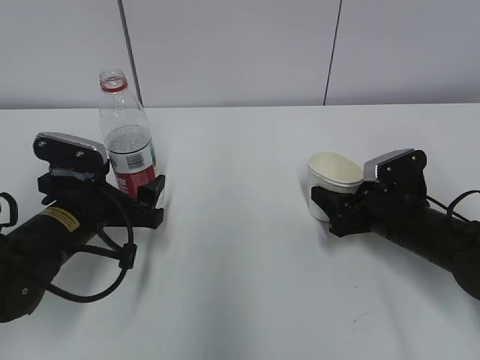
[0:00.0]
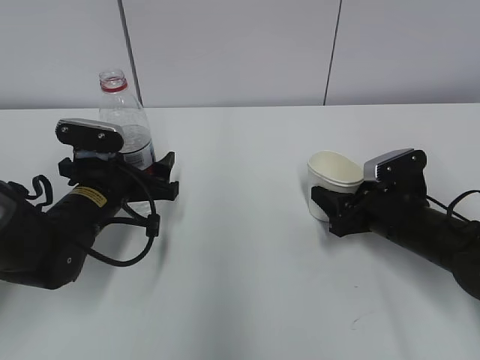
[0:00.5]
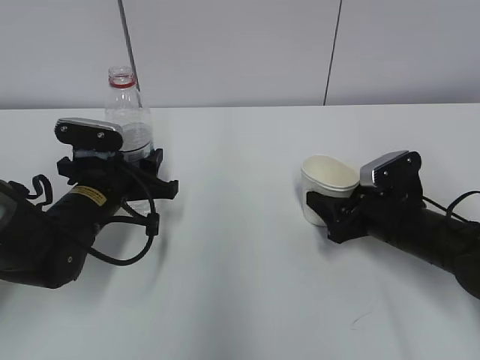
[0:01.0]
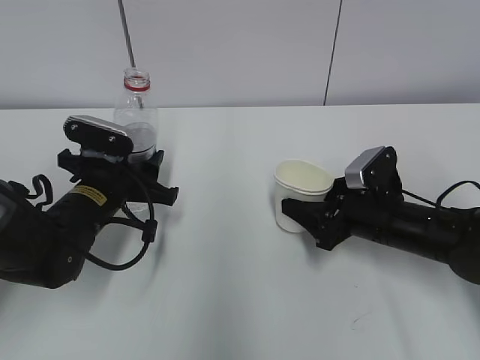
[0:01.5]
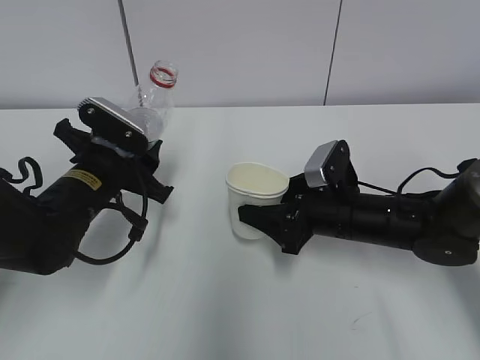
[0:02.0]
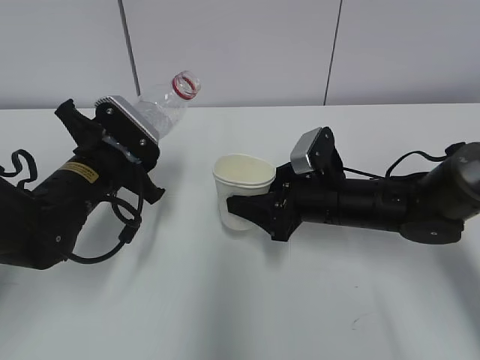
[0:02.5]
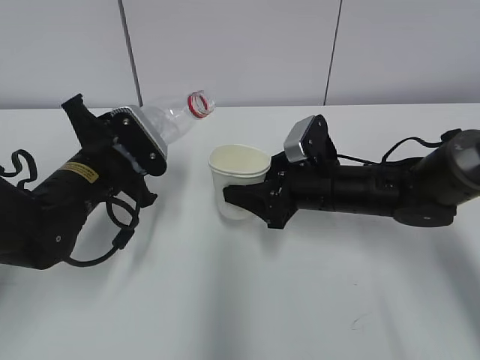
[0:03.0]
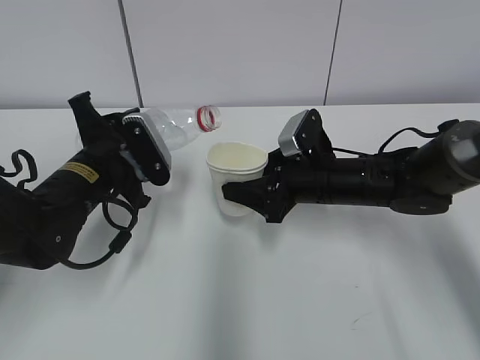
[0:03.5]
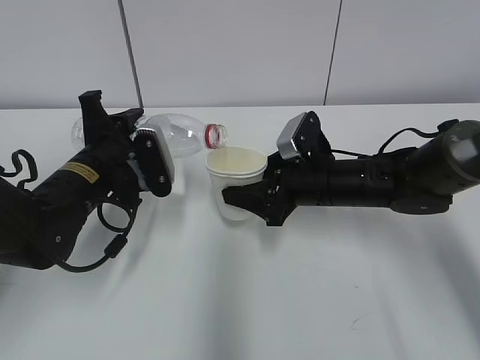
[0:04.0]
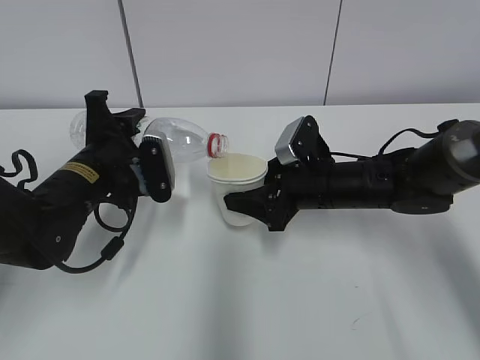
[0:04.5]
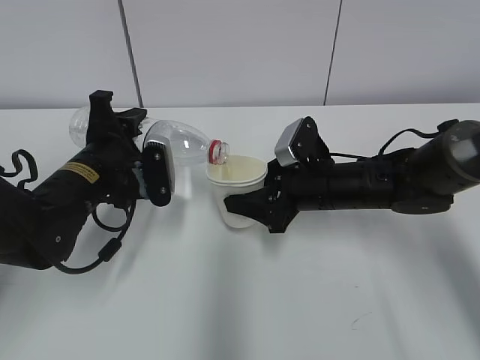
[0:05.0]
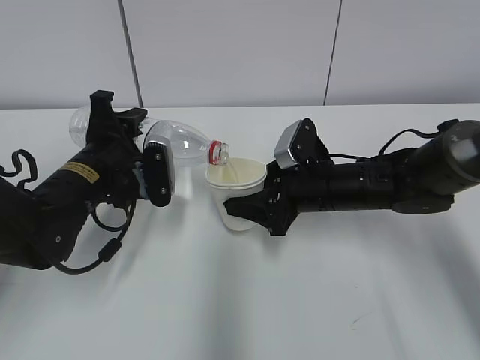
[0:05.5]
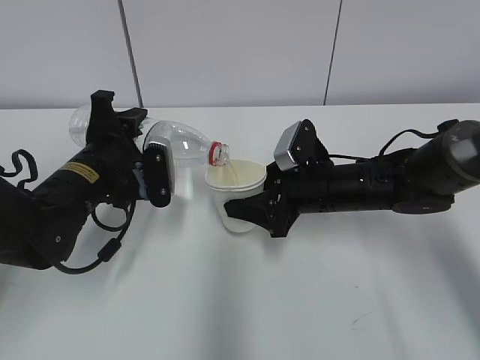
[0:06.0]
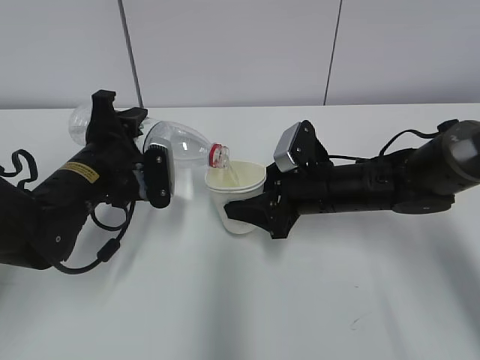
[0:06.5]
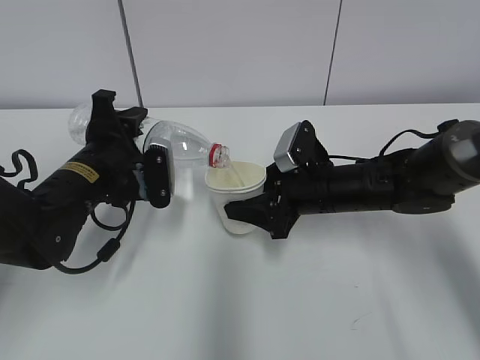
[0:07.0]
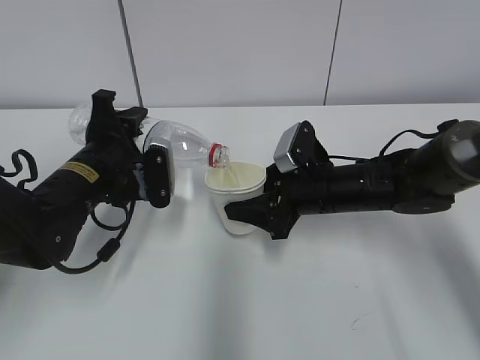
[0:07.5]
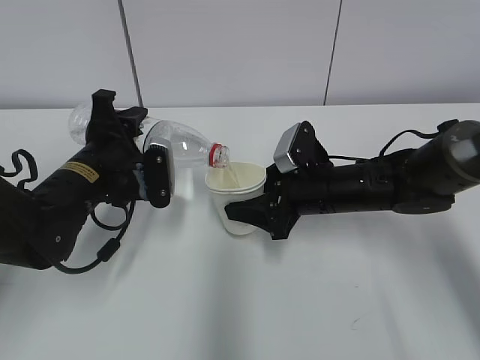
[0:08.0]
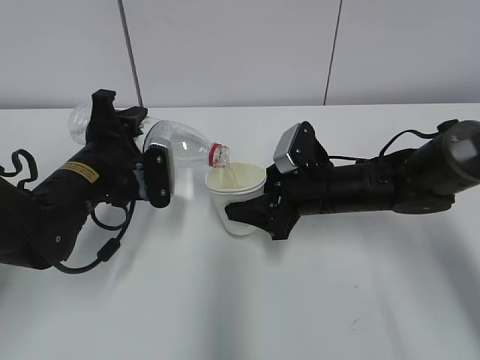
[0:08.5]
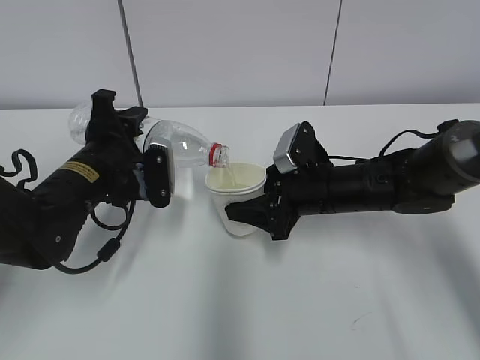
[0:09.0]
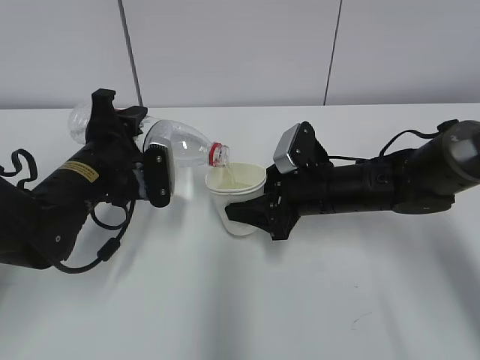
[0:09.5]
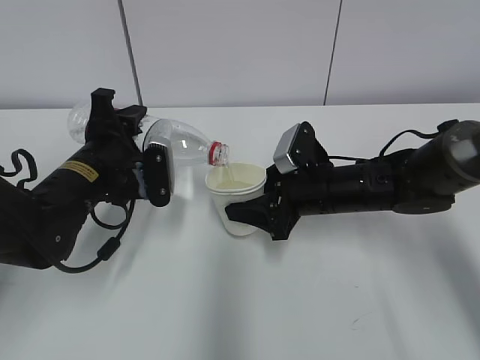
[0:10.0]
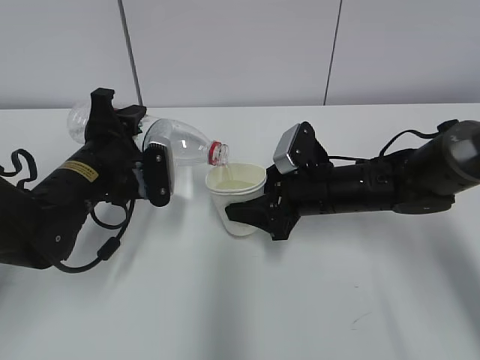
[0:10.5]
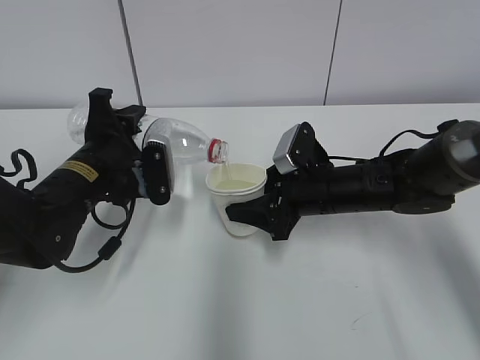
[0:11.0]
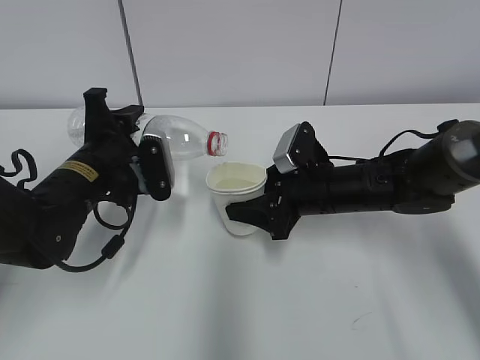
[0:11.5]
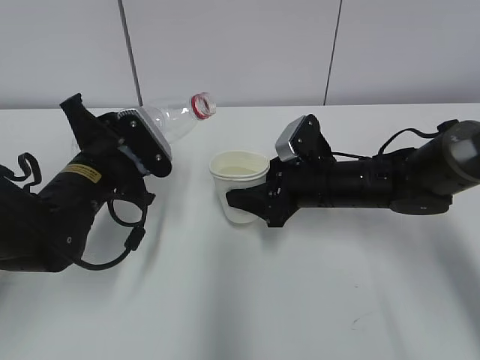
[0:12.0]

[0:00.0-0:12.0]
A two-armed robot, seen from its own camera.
Step, 0:00.0 to 0:02.0: Lift the paper cup with the right hand.
Step, 0:02.5 to 0:08.0: Fill water with the right hand.
0:00.0 to 0:02.0: The right gripper moves to the left, roughly 10 cm. Meanwhile the left gripper closes its fingers.
0:04.0 to 0:06.0: The grippers make only small movements.
0:06.0 to 0:10.0: Neither gripper changes place.

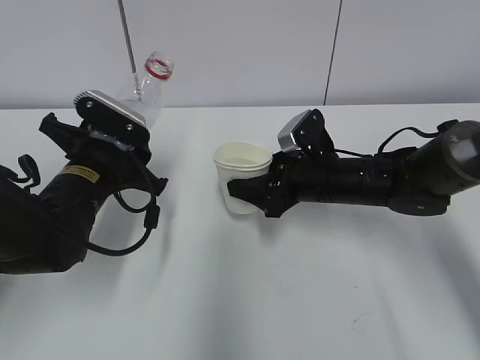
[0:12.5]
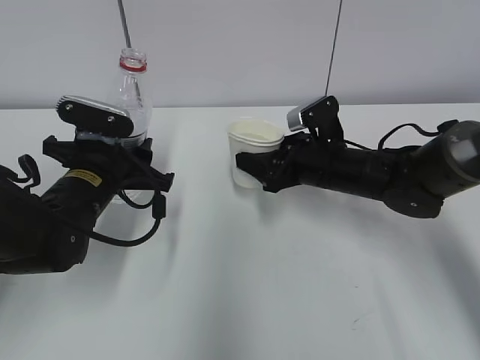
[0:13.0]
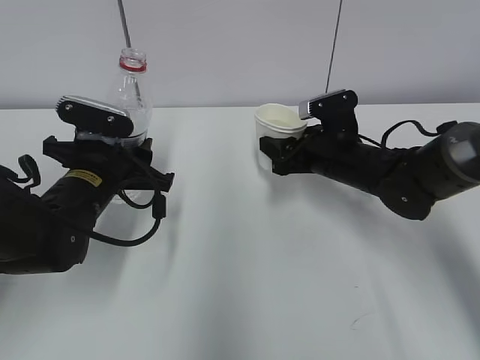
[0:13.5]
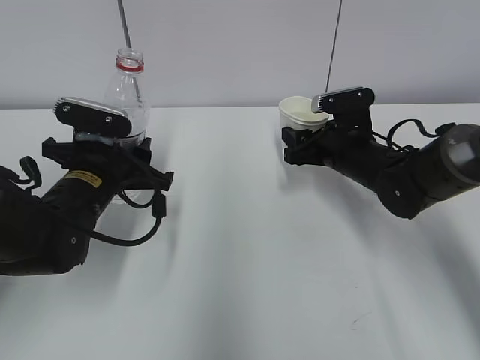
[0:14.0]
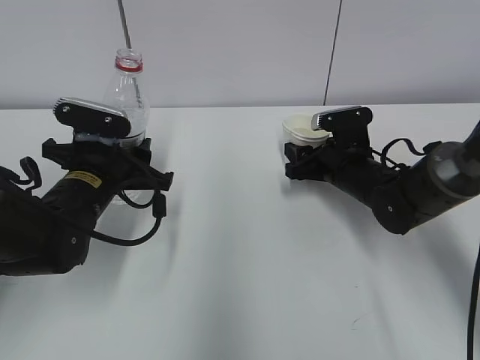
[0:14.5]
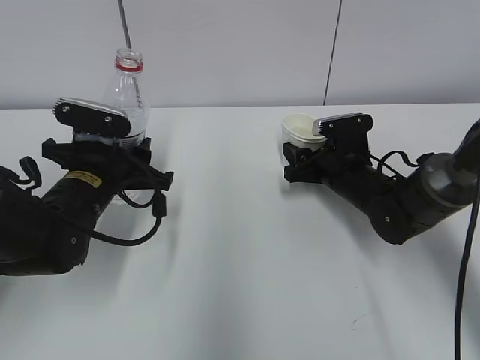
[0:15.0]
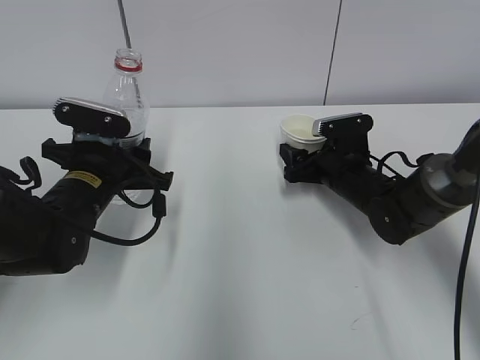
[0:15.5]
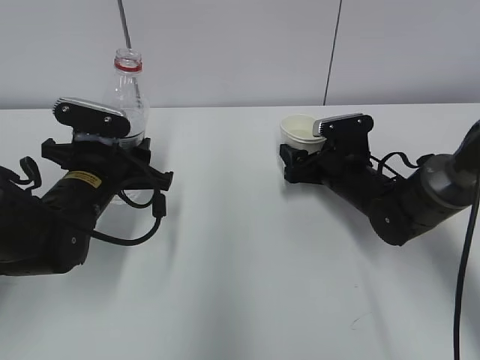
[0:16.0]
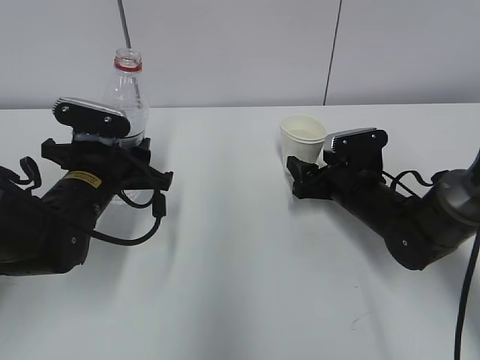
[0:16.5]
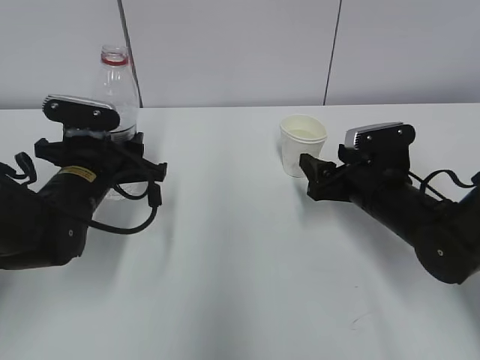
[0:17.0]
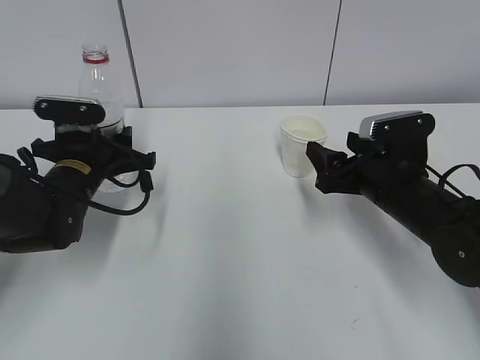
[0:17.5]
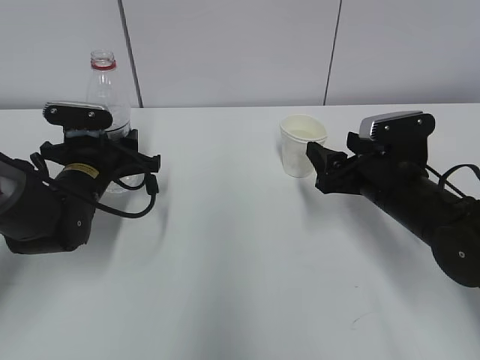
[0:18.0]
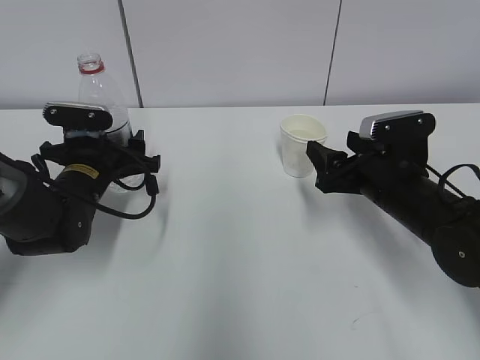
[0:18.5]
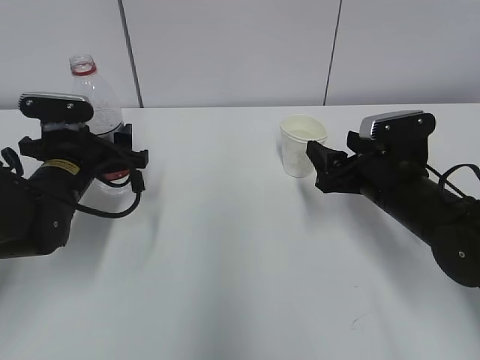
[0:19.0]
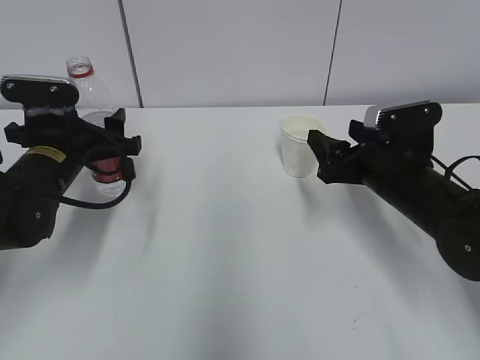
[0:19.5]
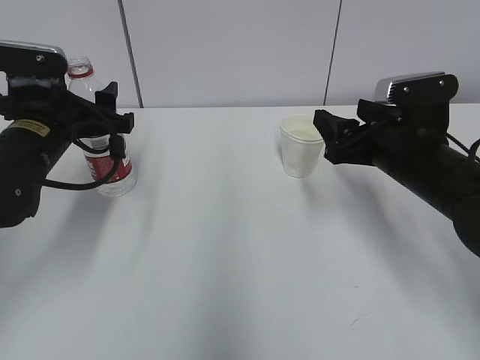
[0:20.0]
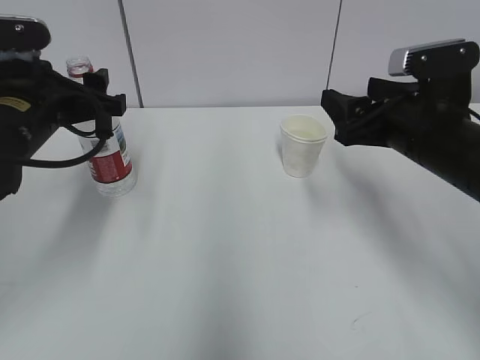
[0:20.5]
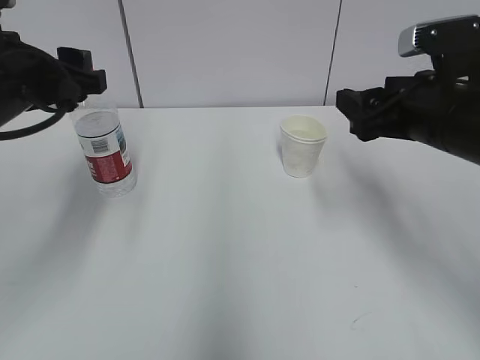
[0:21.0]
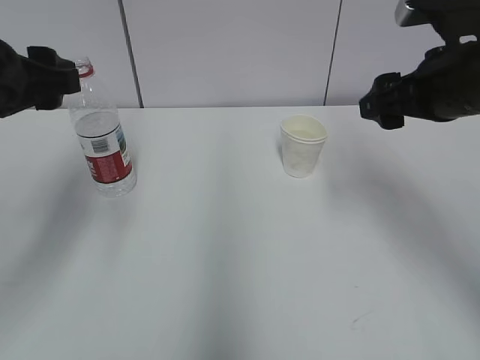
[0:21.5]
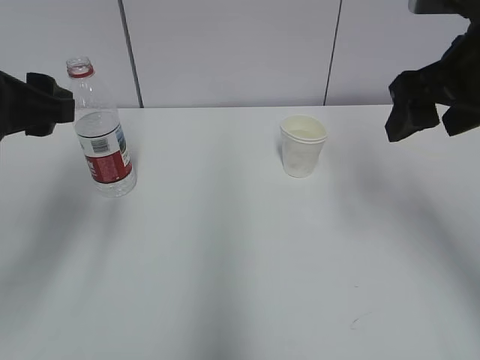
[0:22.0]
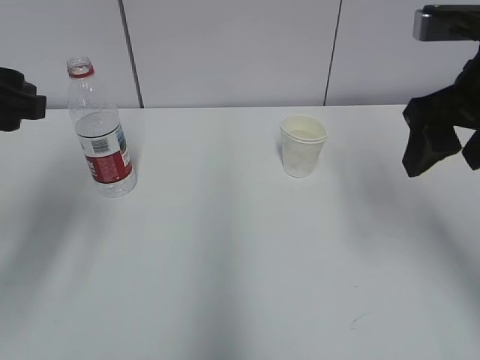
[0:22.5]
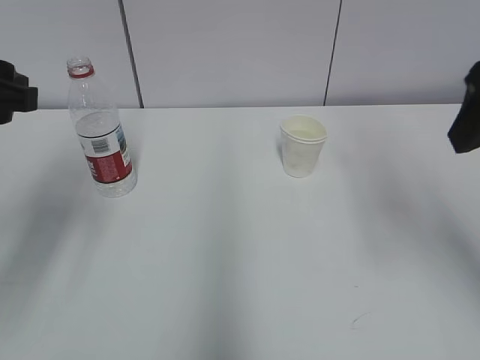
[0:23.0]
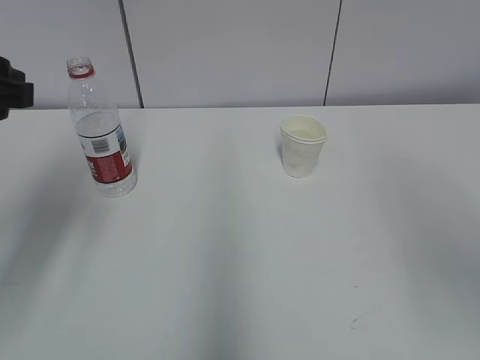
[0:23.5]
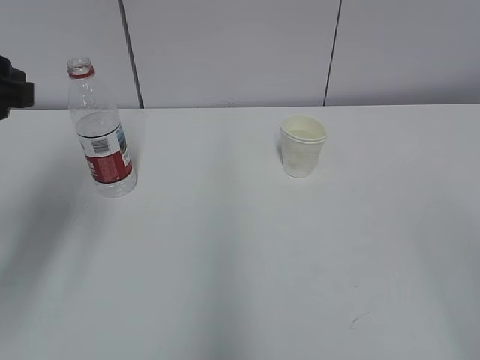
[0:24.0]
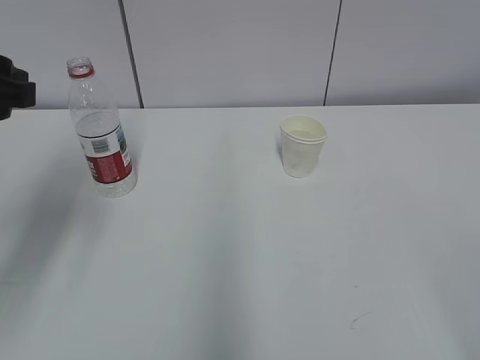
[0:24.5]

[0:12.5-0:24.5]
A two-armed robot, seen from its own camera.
0:12.5 to 0:14.5: The right gripper moves some 5 cm.
0:14.5 to 0:16.5: The right gripper opens its fingers.
0:16.5 to 0:18.5: The left gripper ends up approximately 5 cm from where it was, and opens up. The right gripper is displaced upward and backward by about 10 cm.
0:18.5 to 0:20.5: The right gripper travels upward by roughly 10 cm. The left gripper goes some 15 cm upward and backward.
0:20.5 to 0:22.5: The left gripper is displaced backward and upward by some 10 cm; the right gripper moves upward, roughly 10 cm.
0:22.5 to 0:24.5: The right gripper moves backward, about 30 cm.

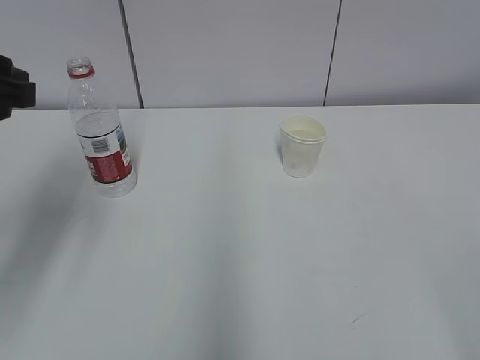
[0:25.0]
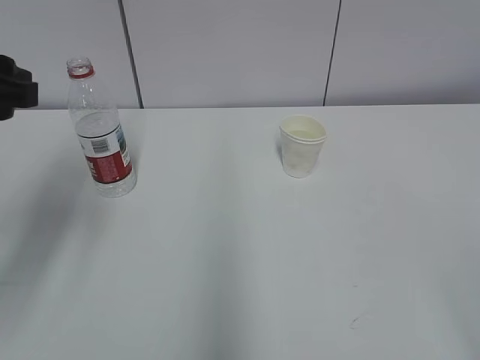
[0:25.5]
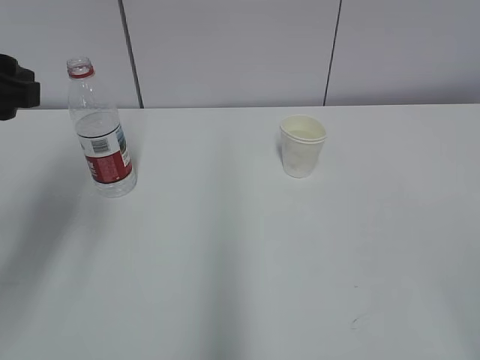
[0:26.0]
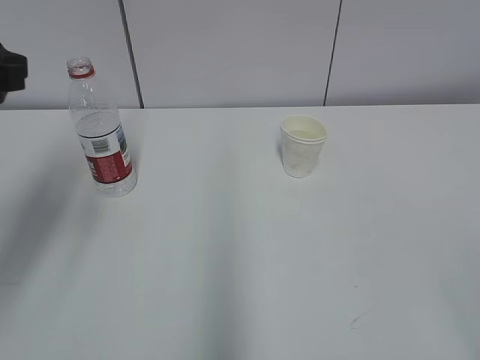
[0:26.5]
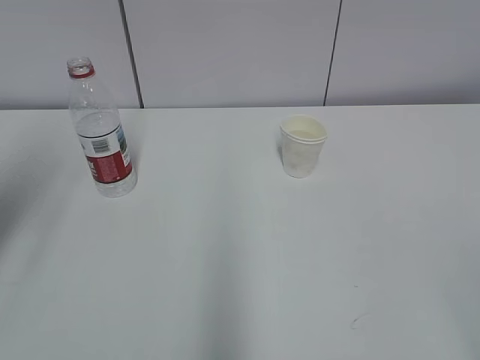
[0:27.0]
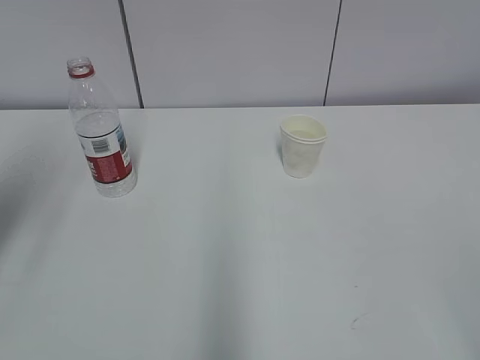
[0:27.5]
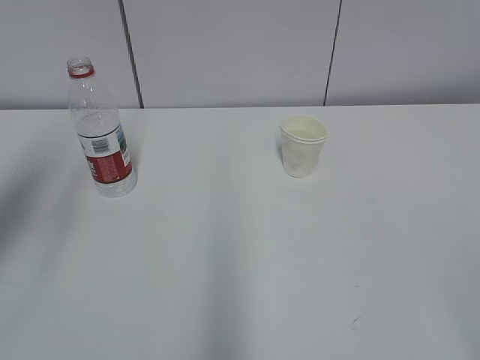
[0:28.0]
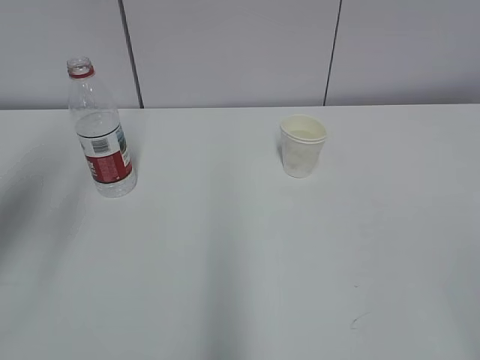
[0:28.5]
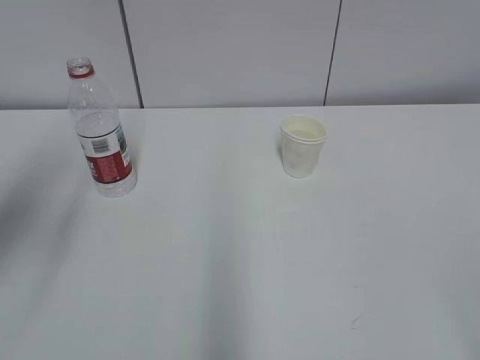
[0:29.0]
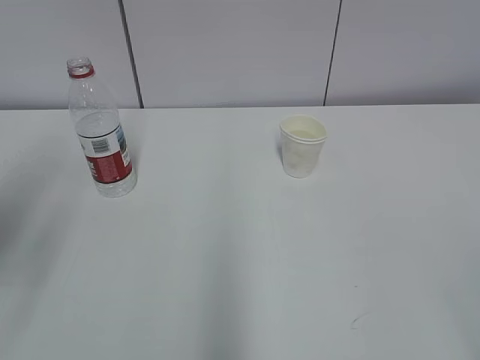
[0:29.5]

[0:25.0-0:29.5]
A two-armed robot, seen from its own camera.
0:25.0 to 0:27.0: The left gripper goes about 5 cm to the left.
